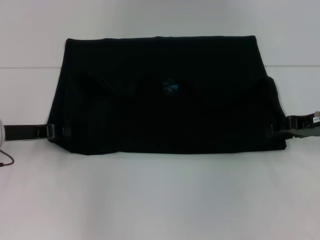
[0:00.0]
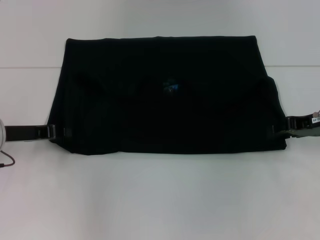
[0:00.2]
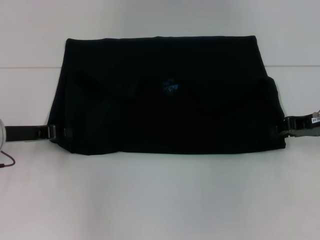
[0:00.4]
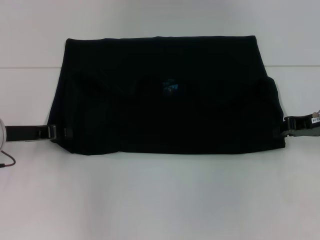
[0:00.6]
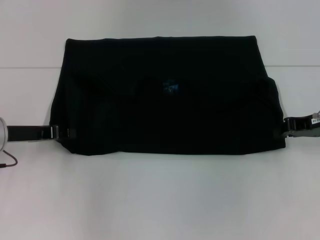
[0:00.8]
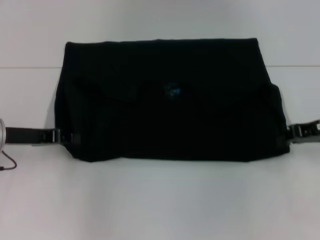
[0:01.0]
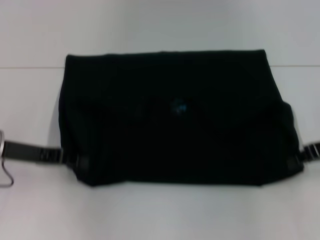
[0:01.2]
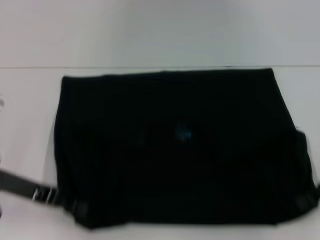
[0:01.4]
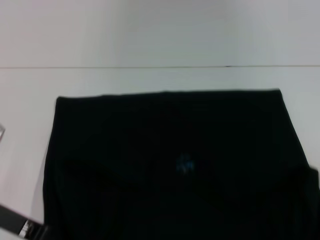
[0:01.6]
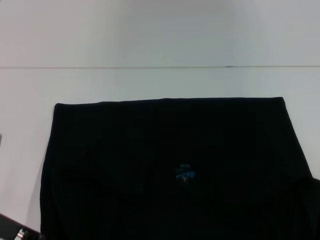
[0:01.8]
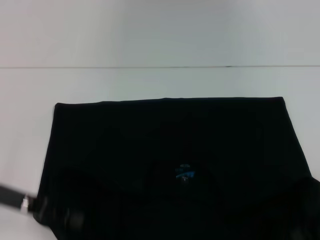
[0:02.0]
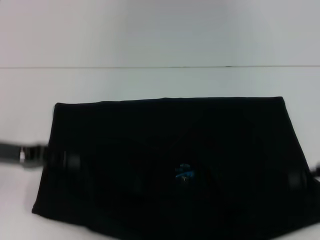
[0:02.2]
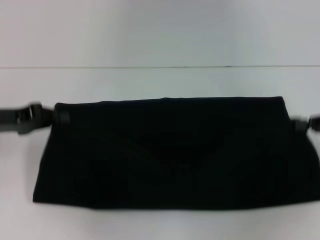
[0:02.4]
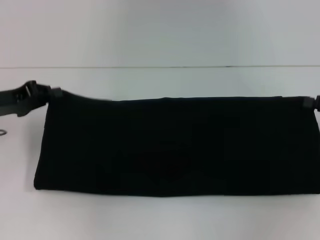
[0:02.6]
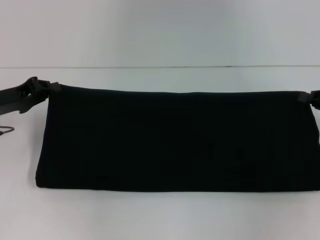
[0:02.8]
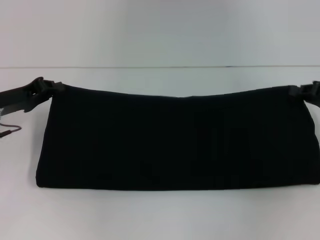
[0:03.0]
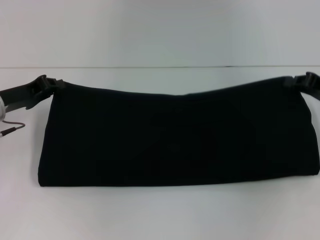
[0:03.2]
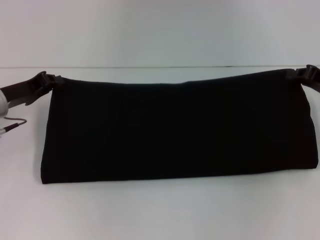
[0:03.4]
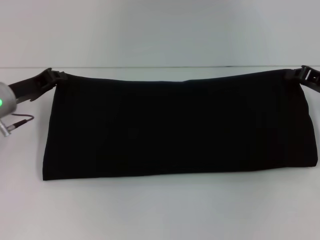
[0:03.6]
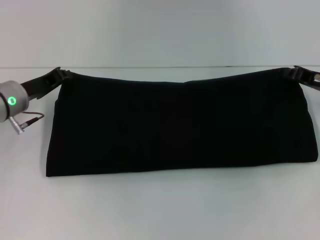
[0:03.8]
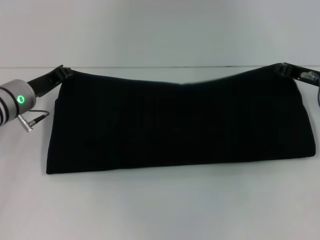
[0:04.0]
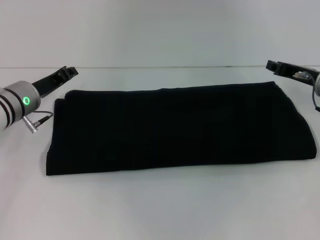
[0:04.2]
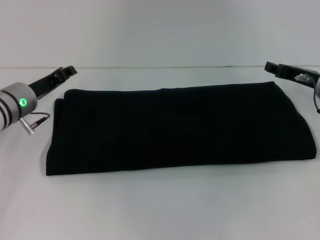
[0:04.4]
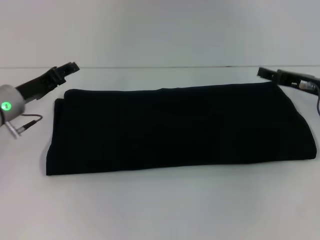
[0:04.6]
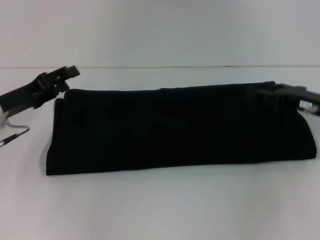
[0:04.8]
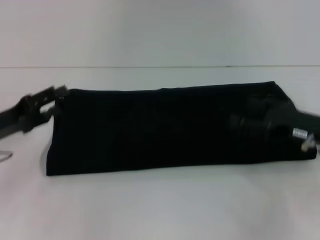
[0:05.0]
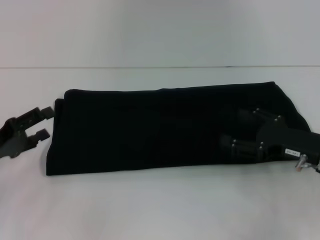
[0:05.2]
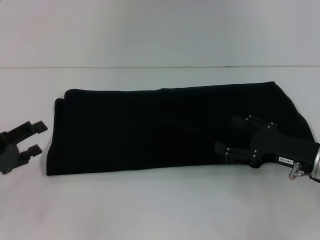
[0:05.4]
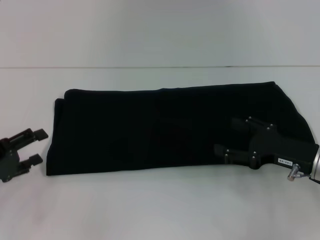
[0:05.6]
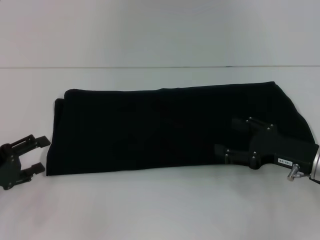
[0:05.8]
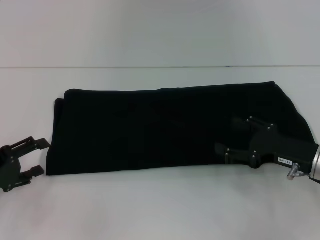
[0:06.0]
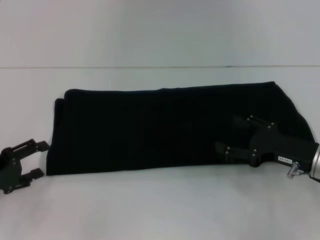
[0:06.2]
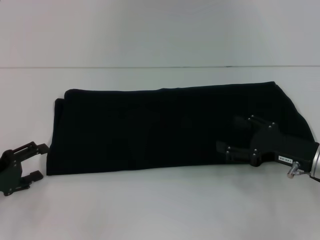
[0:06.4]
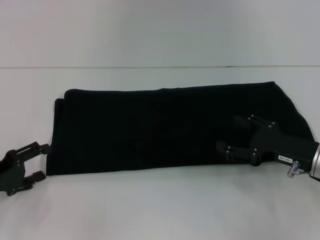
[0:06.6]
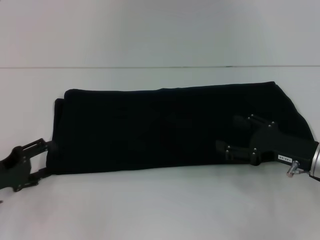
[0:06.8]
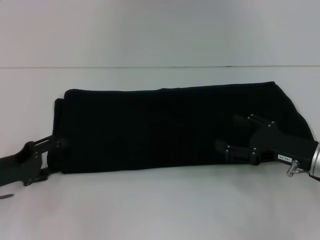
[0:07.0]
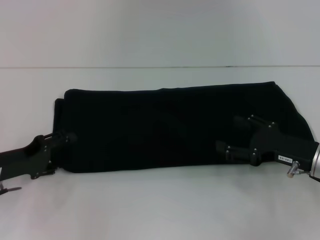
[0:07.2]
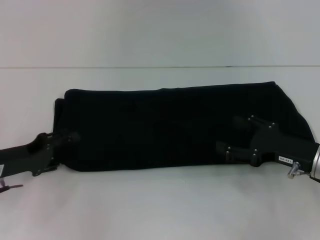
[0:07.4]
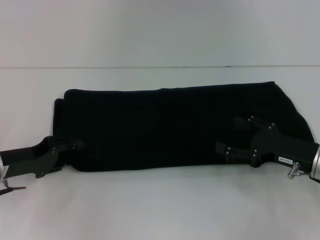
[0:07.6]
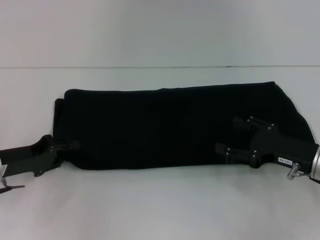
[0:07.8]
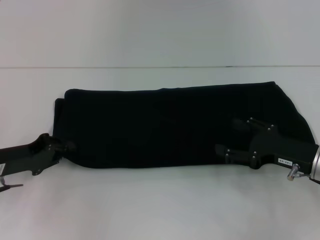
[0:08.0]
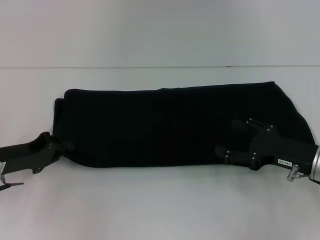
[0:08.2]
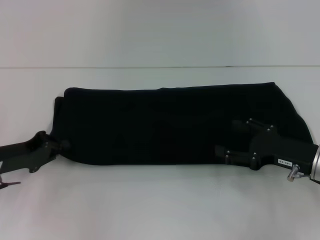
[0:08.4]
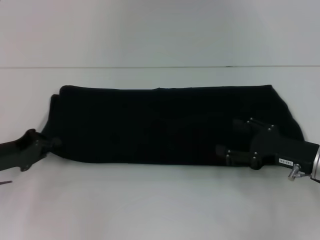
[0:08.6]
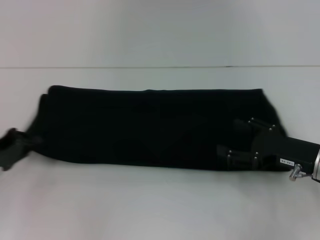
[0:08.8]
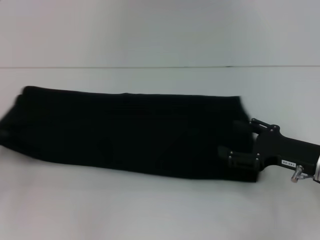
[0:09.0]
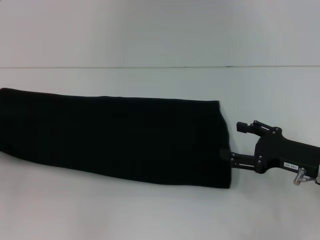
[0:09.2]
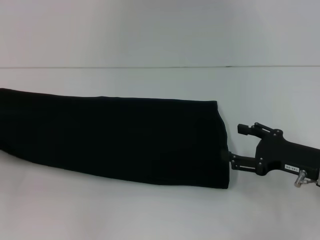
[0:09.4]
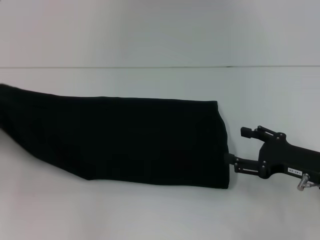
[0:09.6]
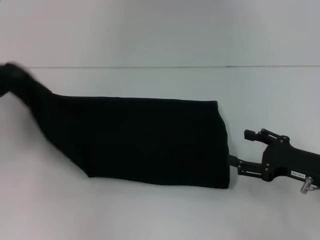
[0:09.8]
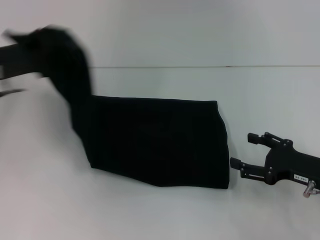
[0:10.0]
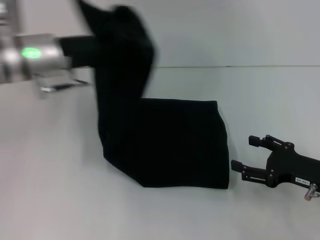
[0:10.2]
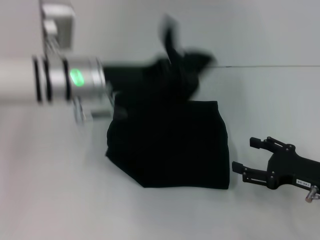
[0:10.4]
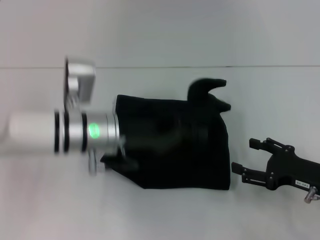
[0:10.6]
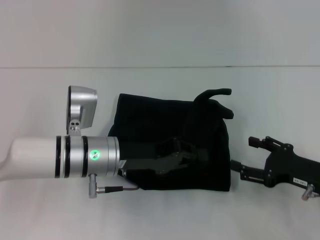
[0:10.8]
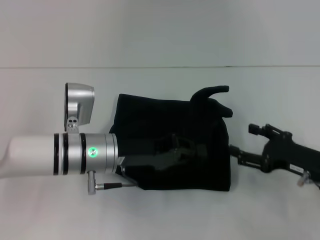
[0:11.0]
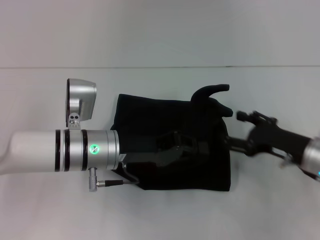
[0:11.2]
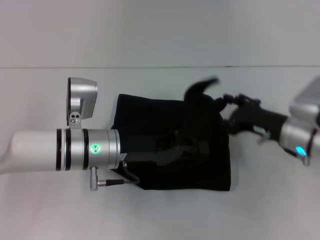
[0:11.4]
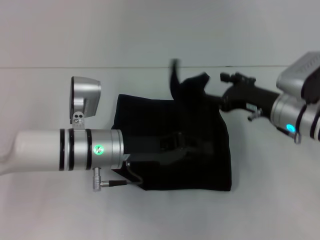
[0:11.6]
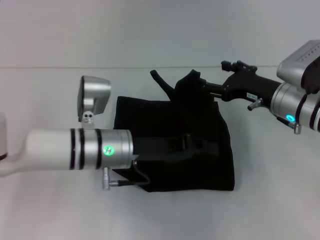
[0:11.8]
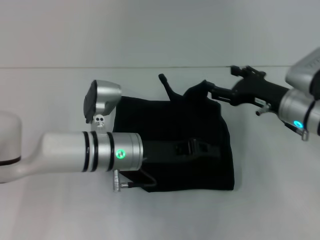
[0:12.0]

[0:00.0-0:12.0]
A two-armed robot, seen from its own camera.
Step, 0:02.0 to 0:04.4: Fold the clothes with your right hand.
0:00.0 to 0:01.6: The two grippers go some 10 cm backward. The right gripper closes.
0:01.6 to 0:03.0: Both grippers move forward, about 10 cm.
0:03.0 to 0:04.4: The right gripper shifts roughly 5 cm to the left, while the left gripper moves to the right, approximately 5 cm.
0:04.4 to 0:06.0: The right gripper heads backward, covering about 10 cm, and opens. Meanwhile the left gripper is displaced backward and to the left by approximately 20 cm, and opens up.
0:06.0 to 0:07.6: The left gripper heads forward, covering some 5 cm.
0:07.6 to 0:09.0: The left gripper shifts approximately 10 cm to the left, and closes its fingers.
0:09.0 to 0:10.4: The left gripper shifts roughly 25 cm to the right and forward.
0:10.4 to 0:12.0: The left gripper is displaced downward by roughly 10 cm. The right gripper is displaced forward and to the left by roughly 15 cm.

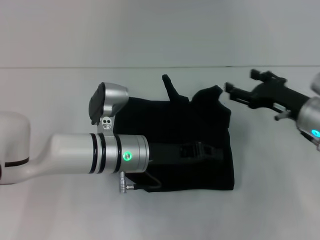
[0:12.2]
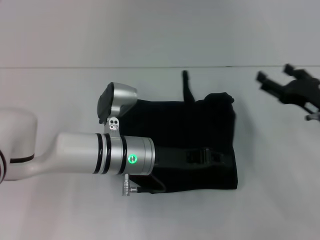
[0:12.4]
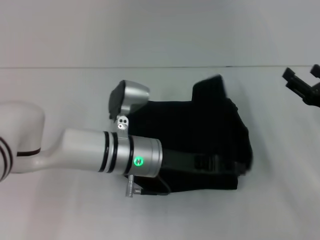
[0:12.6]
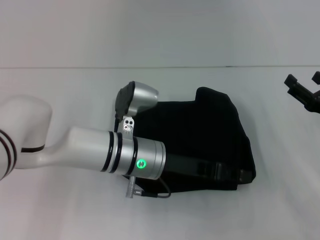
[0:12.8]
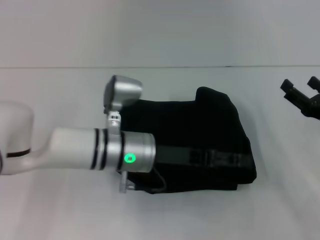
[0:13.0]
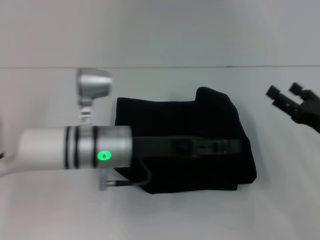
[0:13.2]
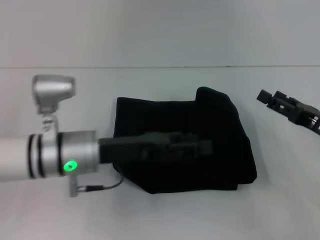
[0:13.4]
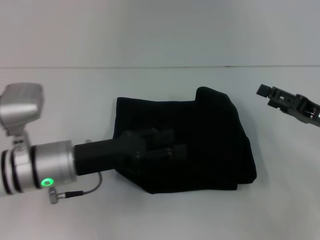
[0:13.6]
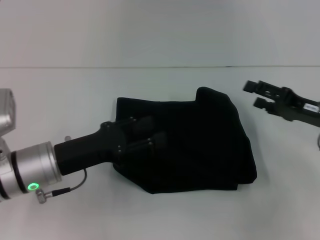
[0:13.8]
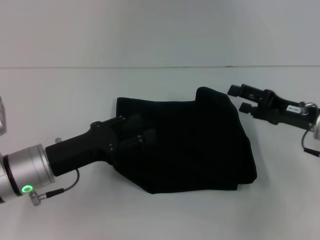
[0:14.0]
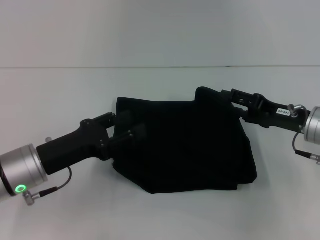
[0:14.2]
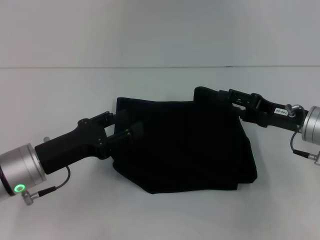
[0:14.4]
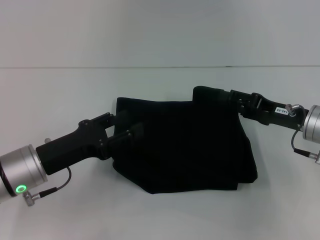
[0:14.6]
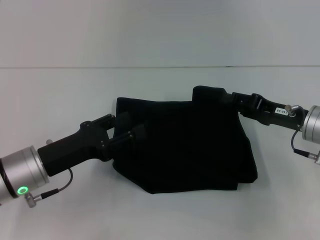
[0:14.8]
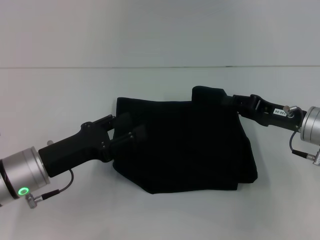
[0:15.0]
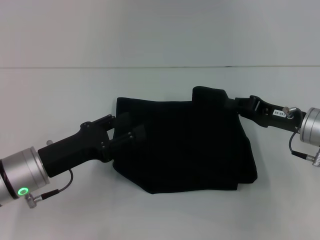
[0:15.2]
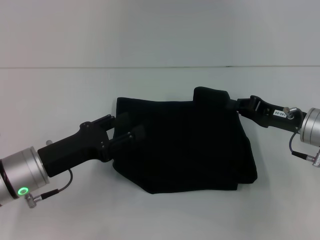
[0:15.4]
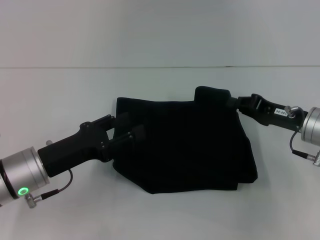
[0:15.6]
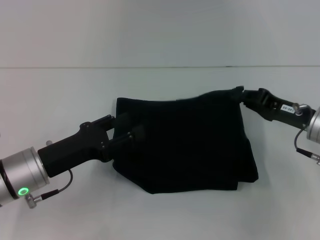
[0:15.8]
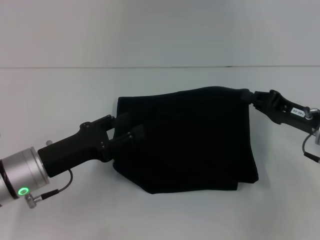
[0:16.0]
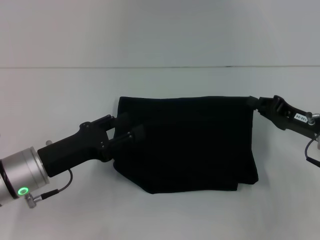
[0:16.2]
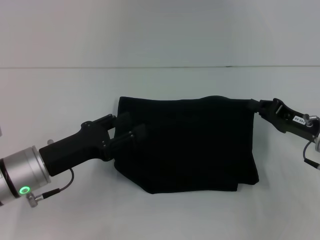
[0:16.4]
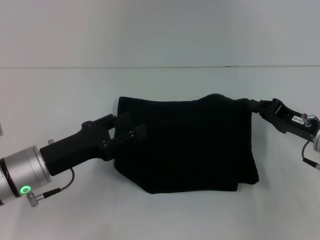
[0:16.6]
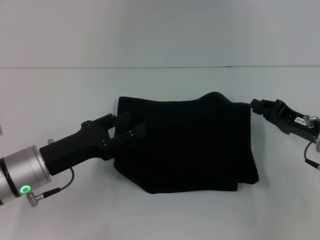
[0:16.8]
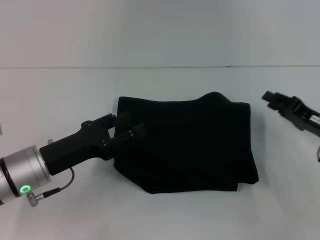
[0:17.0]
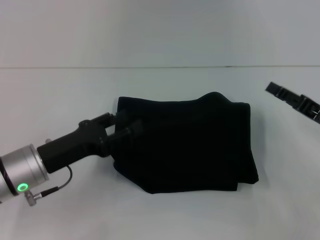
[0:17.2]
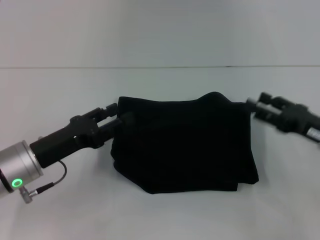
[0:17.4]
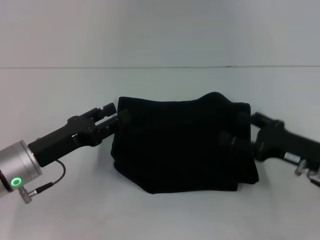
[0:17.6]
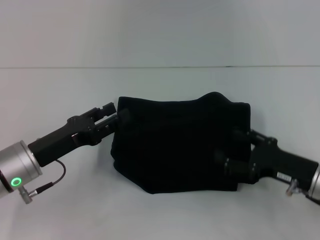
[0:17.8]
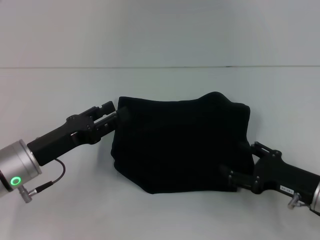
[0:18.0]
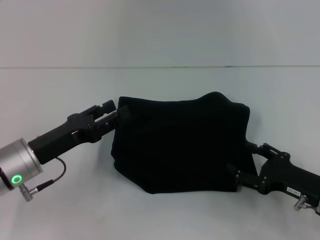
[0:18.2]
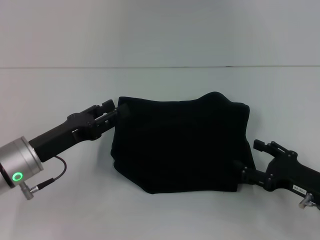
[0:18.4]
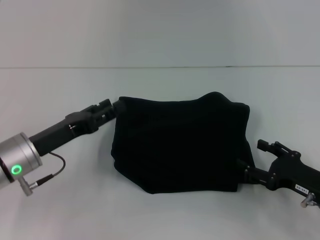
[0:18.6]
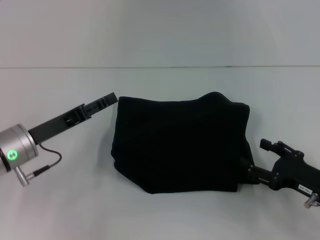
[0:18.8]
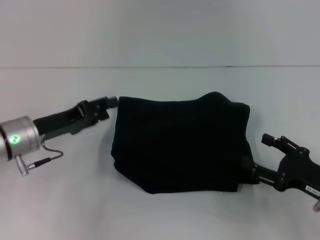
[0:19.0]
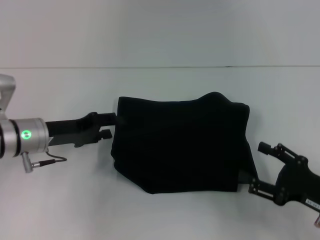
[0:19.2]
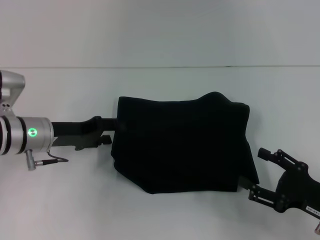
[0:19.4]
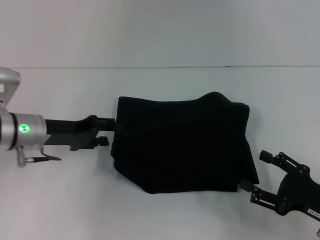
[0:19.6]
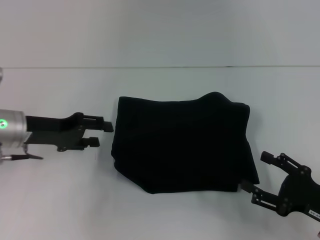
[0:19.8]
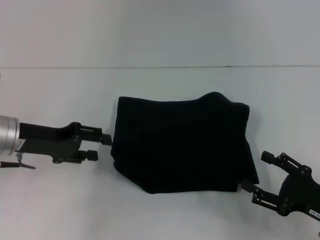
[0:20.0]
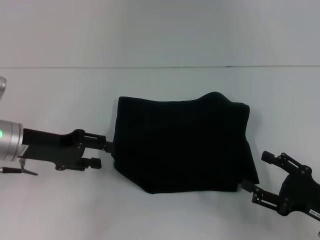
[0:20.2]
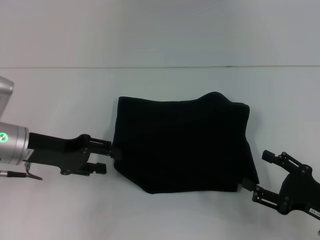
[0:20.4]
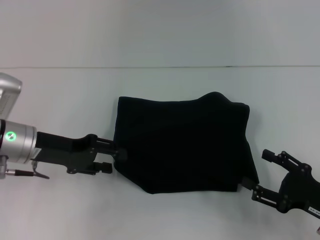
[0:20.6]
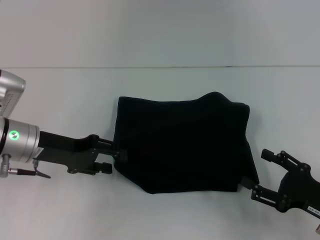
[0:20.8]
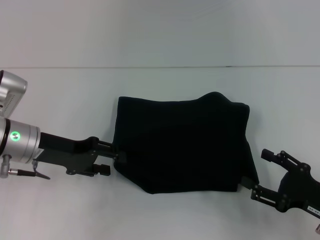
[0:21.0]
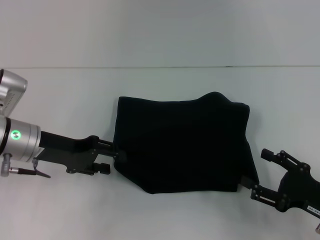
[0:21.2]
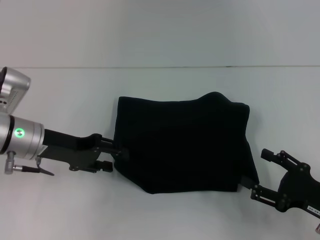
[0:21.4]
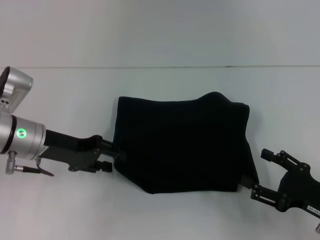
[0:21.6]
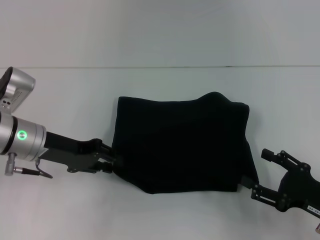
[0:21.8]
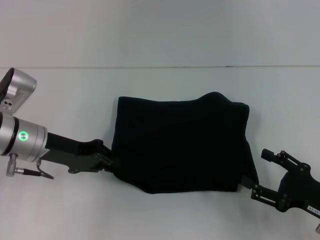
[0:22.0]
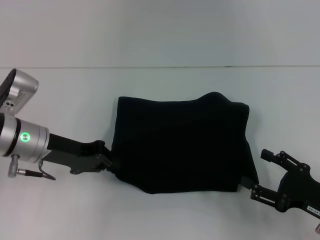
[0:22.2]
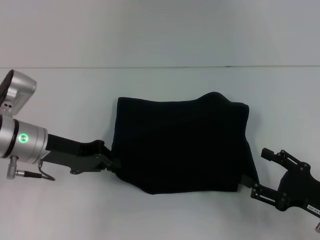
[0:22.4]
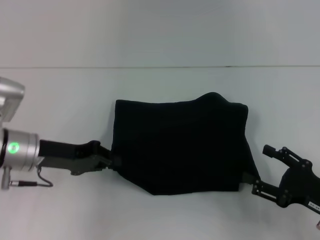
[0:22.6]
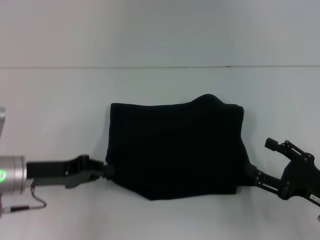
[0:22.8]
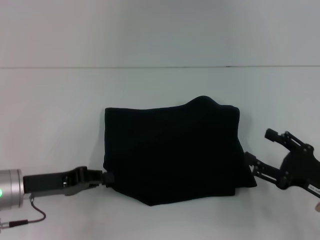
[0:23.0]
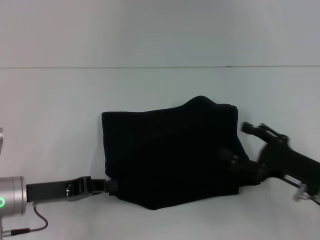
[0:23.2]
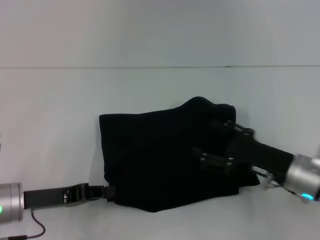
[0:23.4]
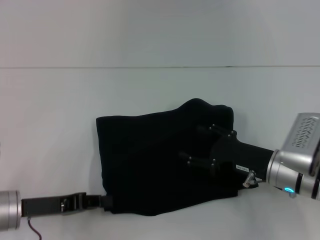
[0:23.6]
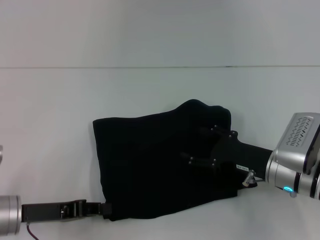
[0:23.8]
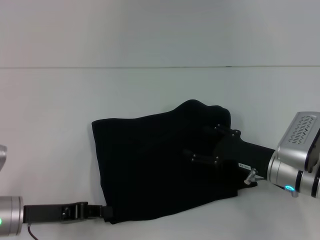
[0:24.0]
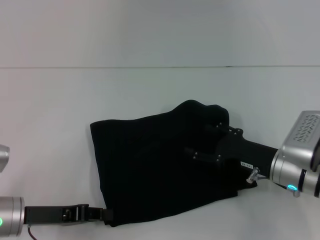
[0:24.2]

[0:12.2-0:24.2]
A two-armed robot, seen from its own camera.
0:12.2 to 0:13.8: The left gripper moves to the left and backward, roughly 10 cm, and opens up.
0:13.8 to 0:15.2: The right gripper closes up.
0:15.2 to 0:16.6: The grippers stay close to where they were, moving slightly.
0:16.6 to 0:18.2: The right gripper travels backward by approximately 10 cm, and opens.
0:18.2 to 0:19.8: The left gripper heads forward, covering some 5 cm.
0:19.8 to 0:21.2: The grippers make only small movements.
0:21.2 to 0:22.6: The left gripper closes its fingers.
0:22.6 to 0:24.2: The right gripper shifts about 10 cm forward and to the left; the left gripper travels backward and downward by roughly 10 cm.
